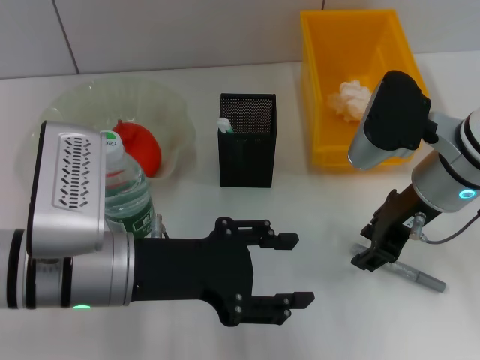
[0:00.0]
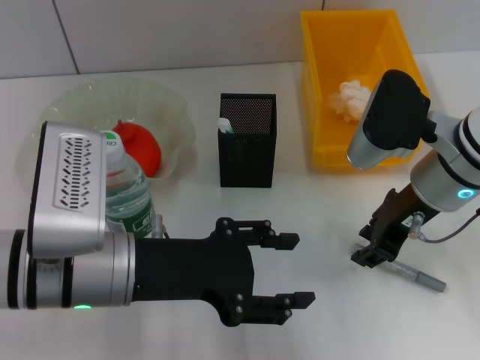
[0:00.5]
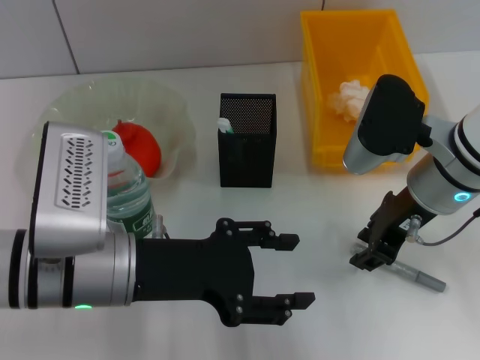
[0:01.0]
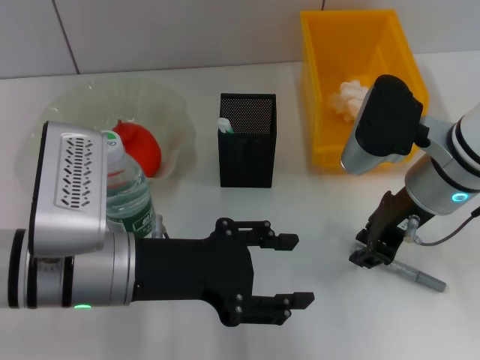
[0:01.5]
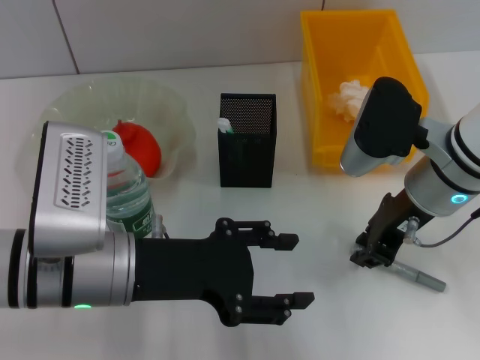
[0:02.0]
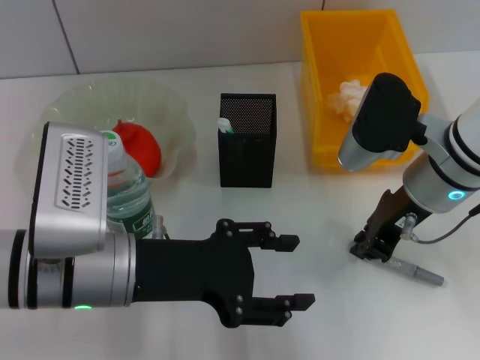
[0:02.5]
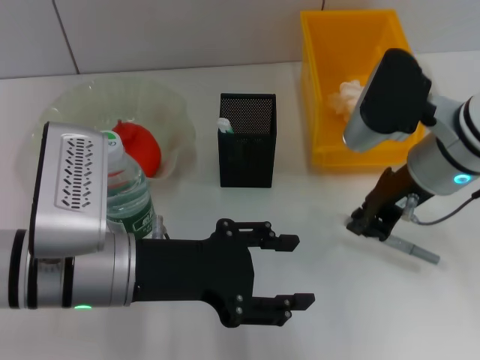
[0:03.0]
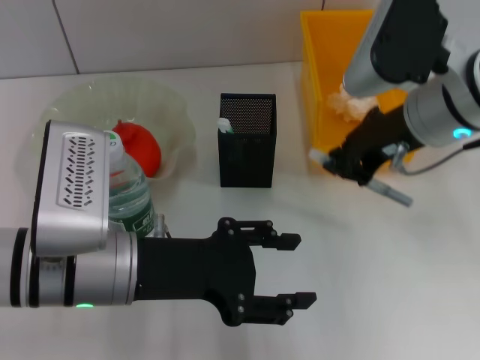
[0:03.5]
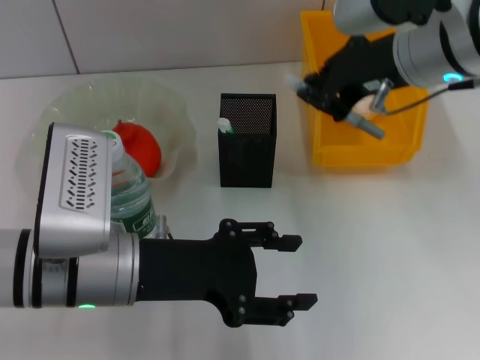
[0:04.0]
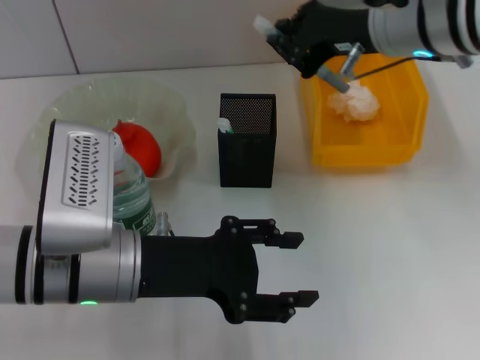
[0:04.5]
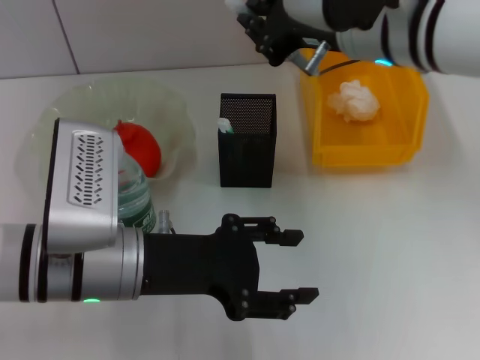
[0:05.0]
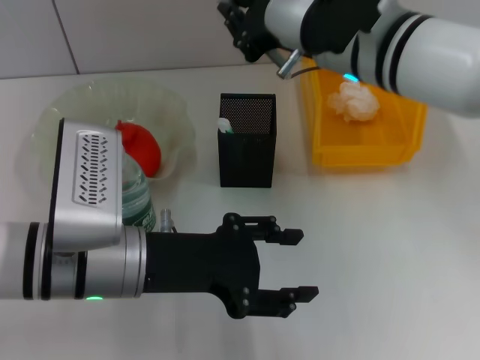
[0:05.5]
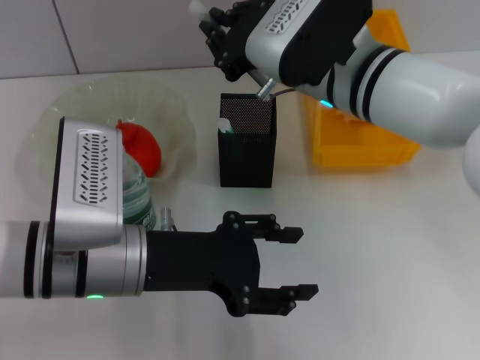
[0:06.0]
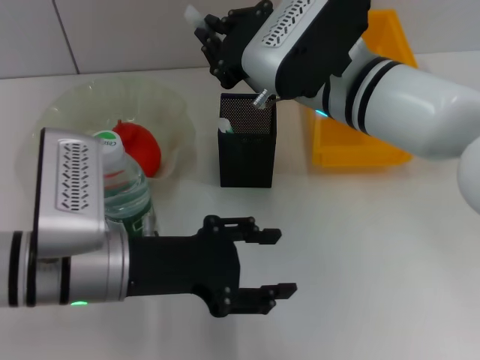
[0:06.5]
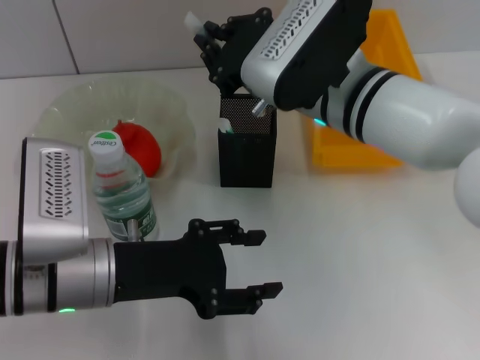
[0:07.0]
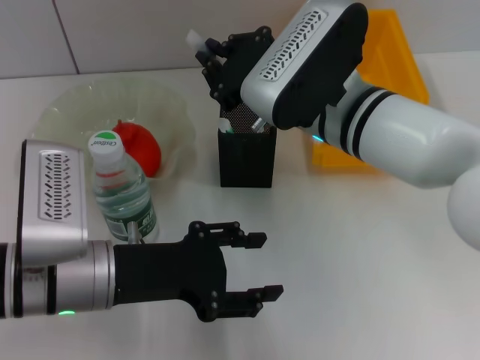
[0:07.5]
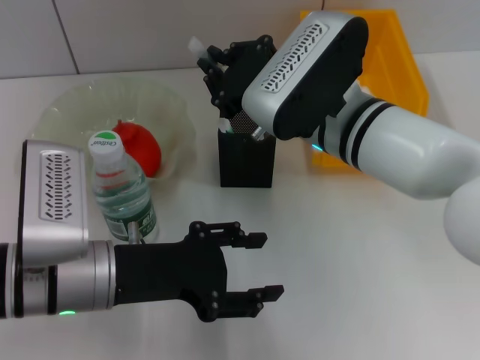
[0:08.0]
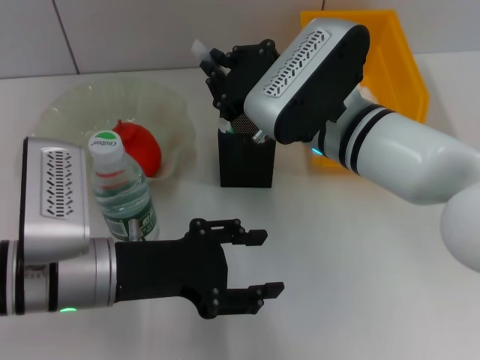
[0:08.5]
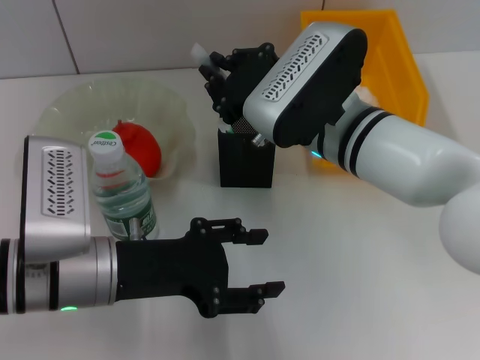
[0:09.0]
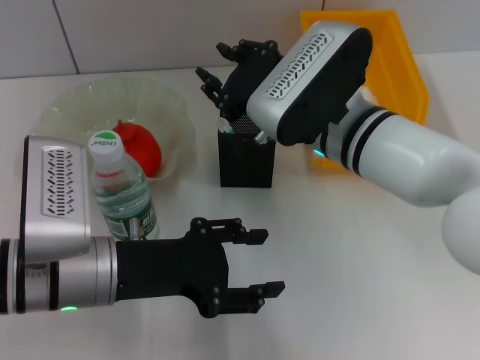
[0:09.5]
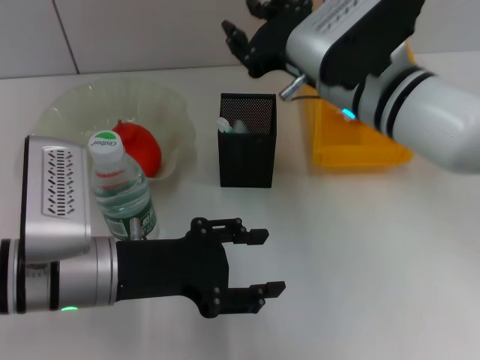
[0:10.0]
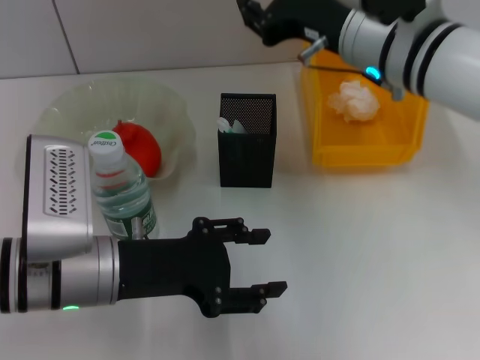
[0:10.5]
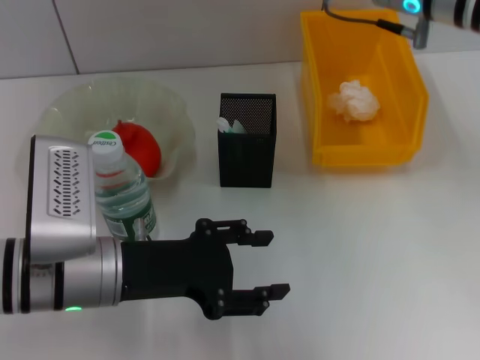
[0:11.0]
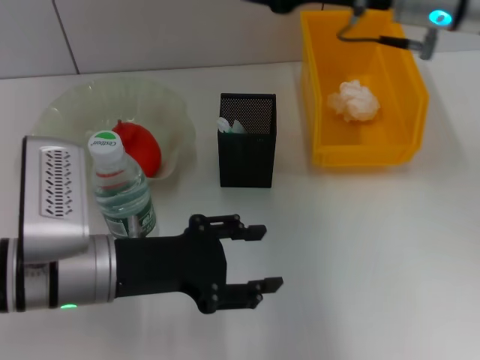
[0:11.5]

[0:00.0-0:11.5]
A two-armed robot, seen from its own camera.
Step, 0:00.0 to 0:02.5: Grab the gray glue with the right hand.
Step, 0:03.0 to 0:09.5: Place the gray glue into the pen holder with the right hand.
0:00.0 to 0:02.0: The two grippers keep their place.
0:02.0 to 0:04.0: The right gripper moves upward, some 10 cm.
0:04.0 to 0:06.0: The right gripper heads downward and to the left, covering some 10 cm.
0:07.5 to 0:09.5: The right gripper opens its fingers.
0:09.5 to 0:11.5: The right gripper goes approximately 15 cm upward and to the right.

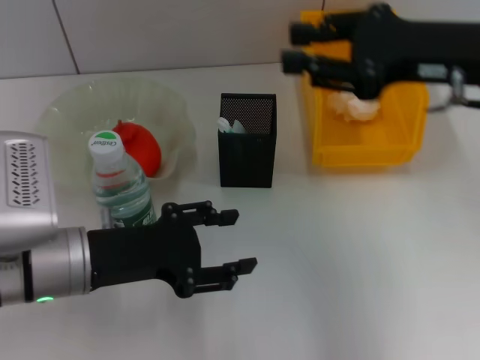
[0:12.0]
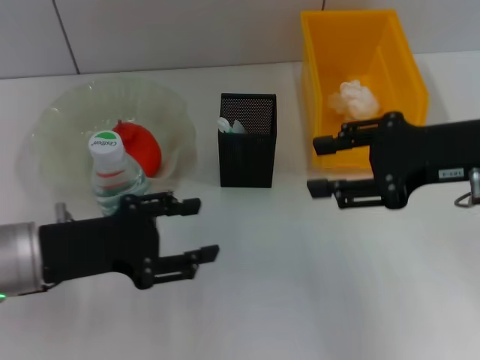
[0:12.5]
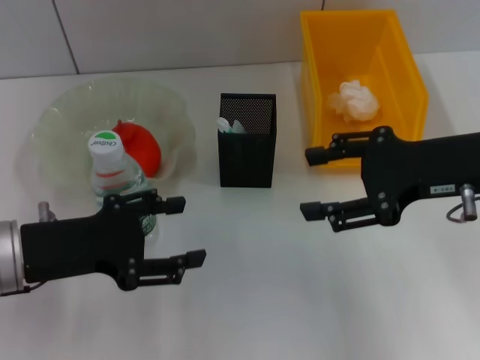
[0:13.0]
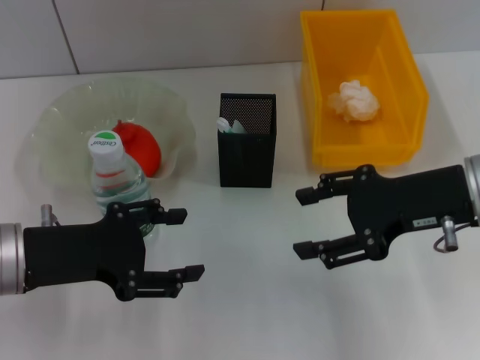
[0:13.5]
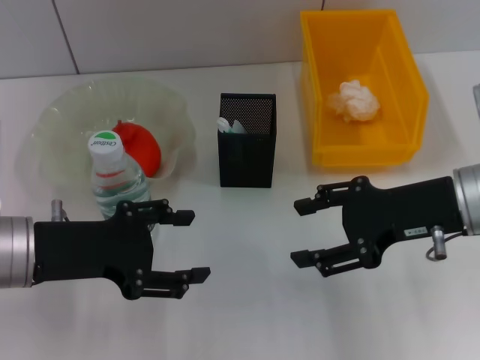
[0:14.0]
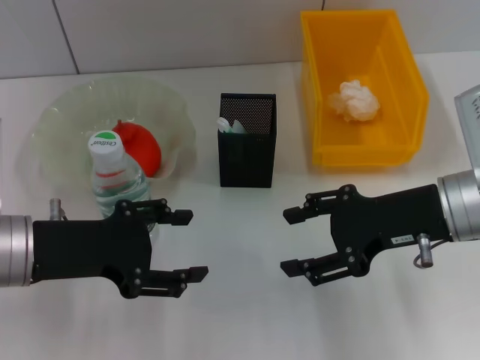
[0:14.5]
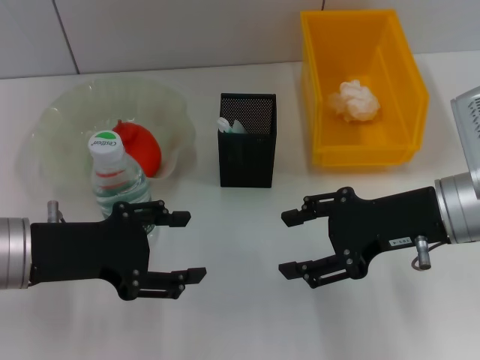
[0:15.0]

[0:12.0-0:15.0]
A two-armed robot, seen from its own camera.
0:12.0 to 0:13.5: The right gripper is displaced downward by some 5 cm, and opens.
0:13.5 to 0:15.0: The grippers make only small movements.

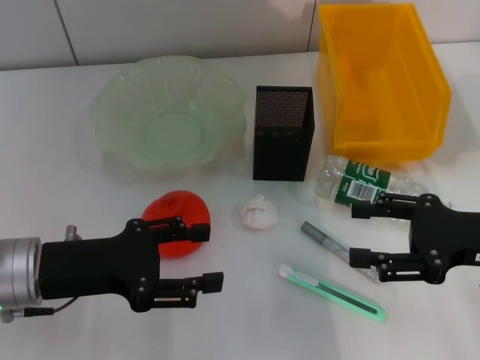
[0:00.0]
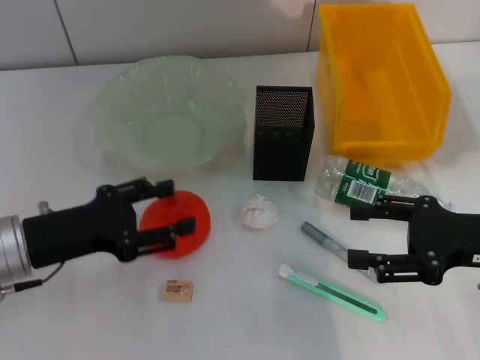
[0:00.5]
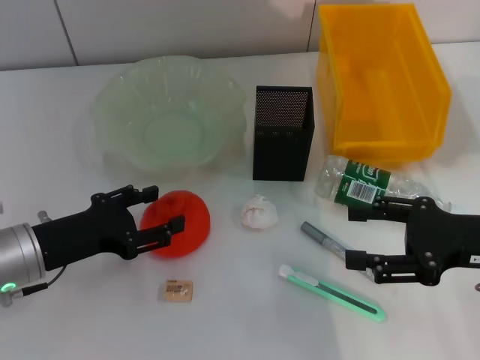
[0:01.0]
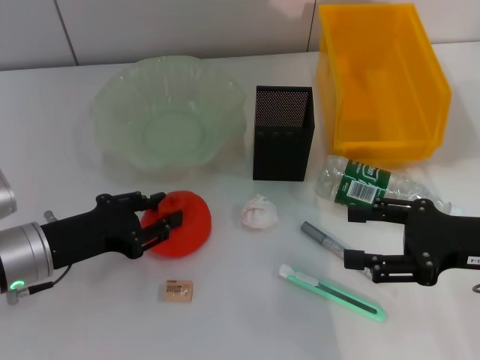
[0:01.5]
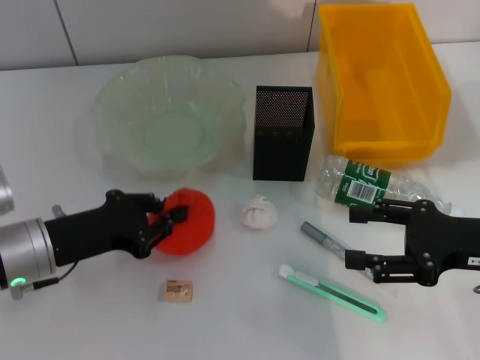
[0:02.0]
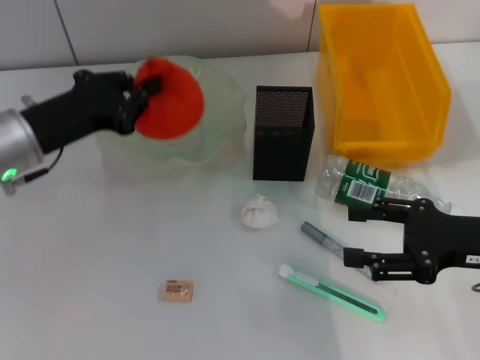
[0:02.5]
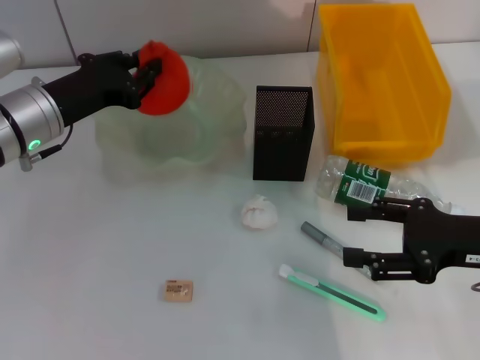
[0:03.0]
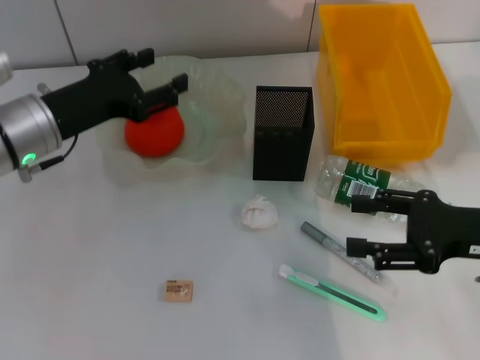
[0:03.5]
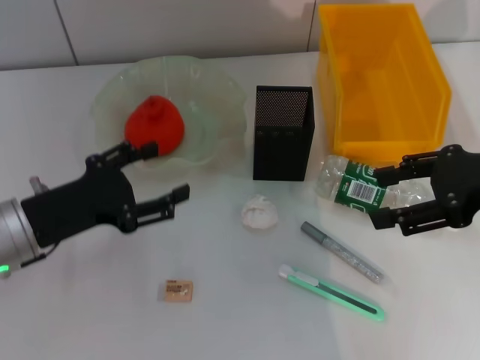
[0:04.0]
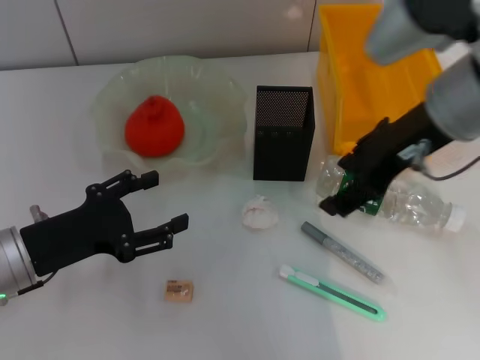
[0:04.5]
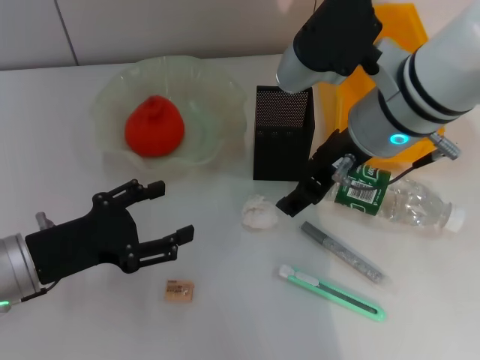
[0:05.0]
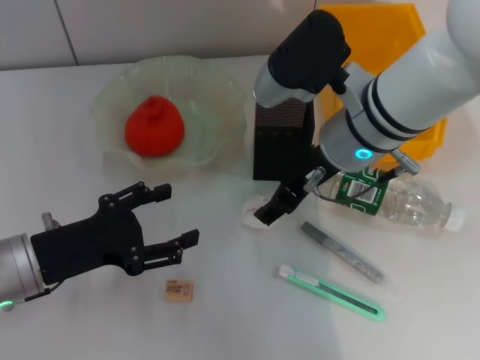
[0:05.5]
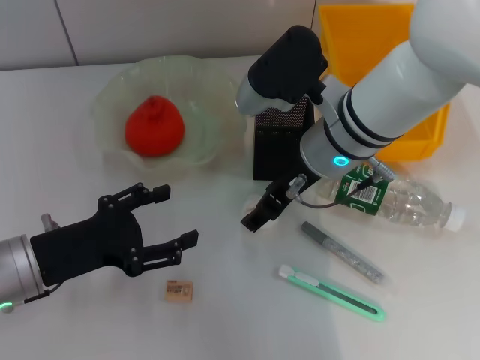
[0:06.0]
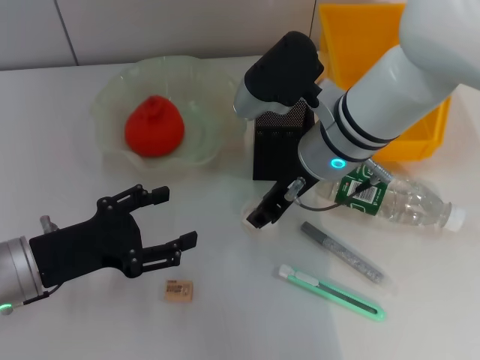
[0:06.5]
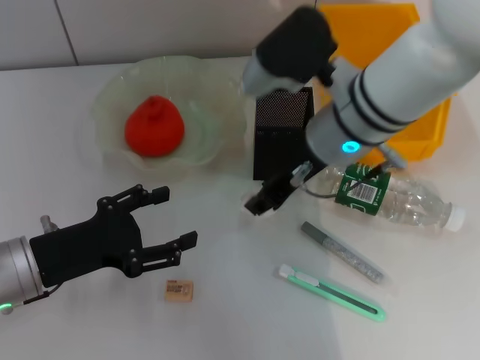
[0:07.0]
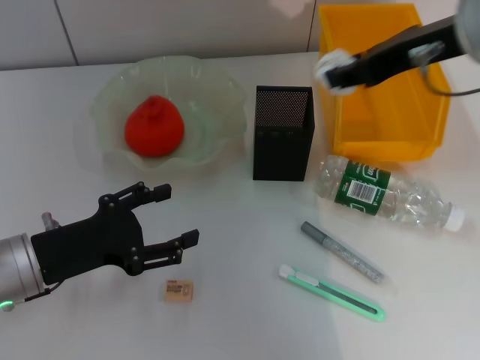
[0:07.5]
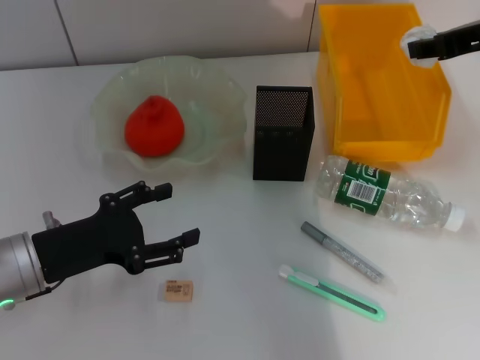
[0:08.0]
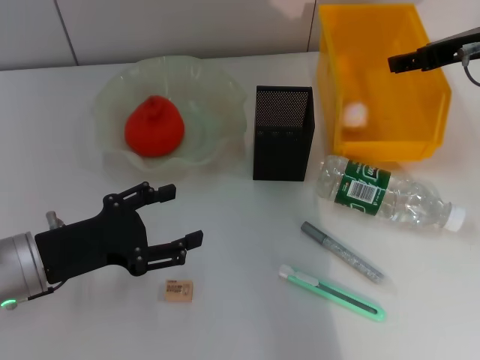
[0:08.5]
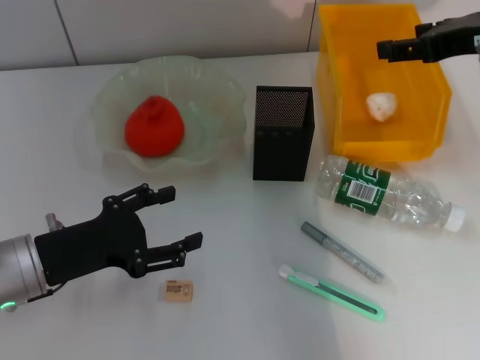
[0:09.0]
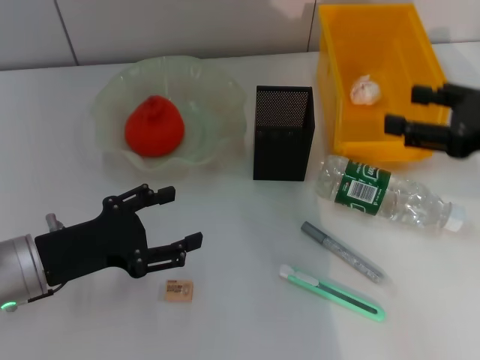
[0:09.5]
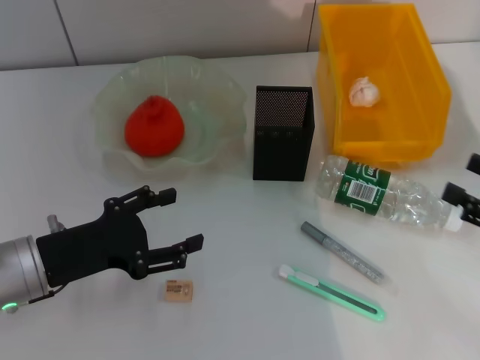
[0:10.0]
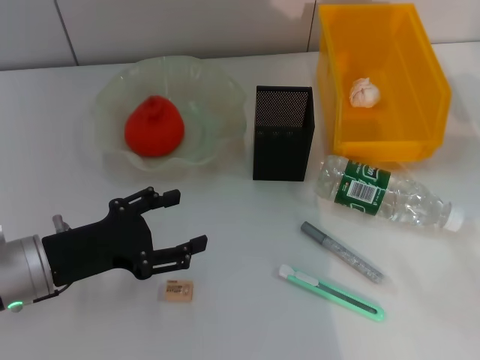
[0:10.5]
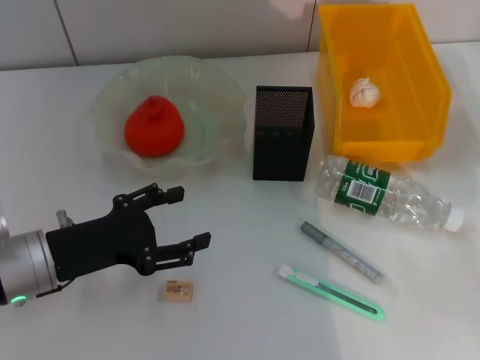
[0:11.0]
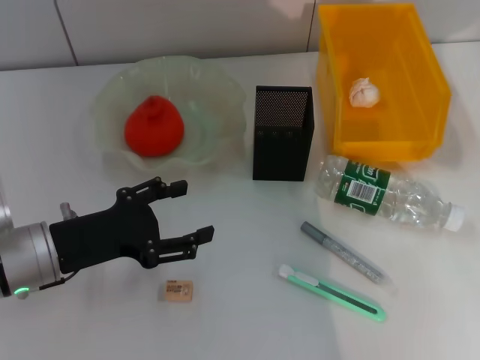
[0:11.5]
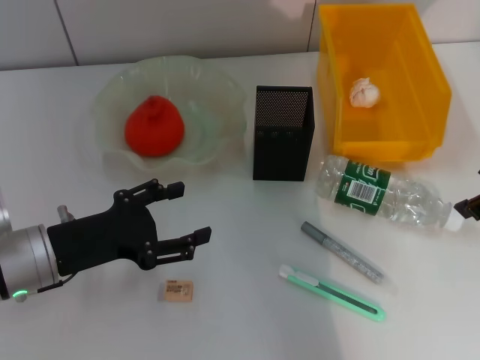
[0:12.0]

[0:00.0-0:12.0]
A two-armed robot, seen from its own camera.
Step, 0:00.0 to 0:01.5: Grab the orange with the left hand.
Step, 0:02.0 to 0:03.0: Place the orange into the fruit bowl with the left hand.
Step, 0:03.5 to 0:06.5: Grab the paper ball with the right hand.
Step, 0:07.0 to 0:08.5: Place the paper ball into the trash can with the right hand.
0:00.0 to 0:02.0: The left gripper closes its fingers.
0:02.0 to 0:04.0: The right gripper goes about 10 cm upward. Meanwhile the left gripper travels forward and back again, approximately 10 cm each way, and opens.
0:04.0 to 0:06.0: The right gripper shifts about 20 cm to the left and forward.
0:06.0 to 0:08.0: The right gripper heads to the right and upward, covering about 20 cm, and closes its fingers.
0:08.0 to 0:10.0: The right gripper shifts roughly 25 cm backward, downward and to the right, and opens its fingers.
0:10.0 to 0:12.0: The right gripper is displaced upward, forward and to the left by some 20 cm.
